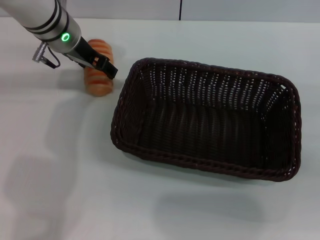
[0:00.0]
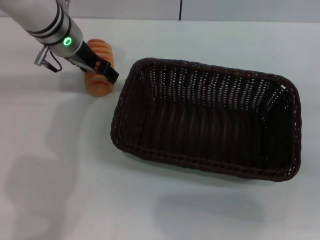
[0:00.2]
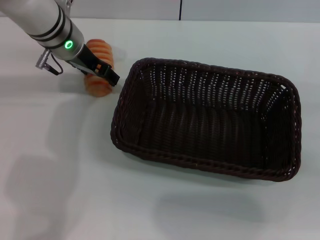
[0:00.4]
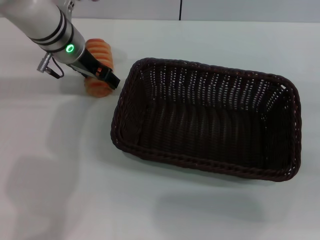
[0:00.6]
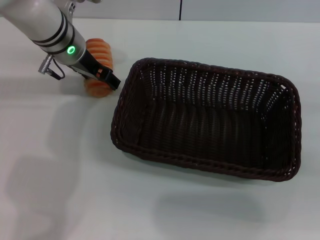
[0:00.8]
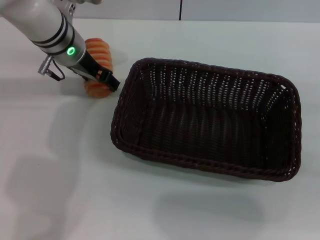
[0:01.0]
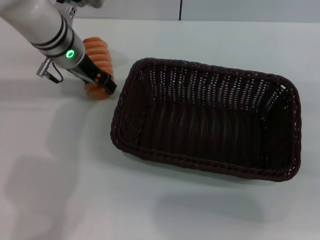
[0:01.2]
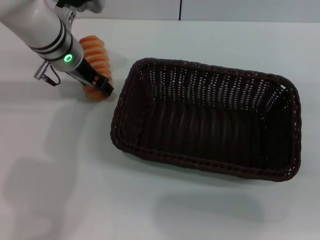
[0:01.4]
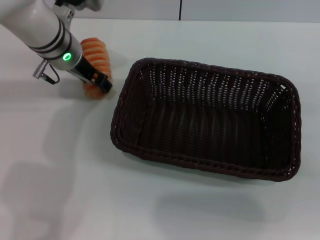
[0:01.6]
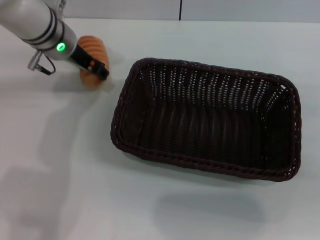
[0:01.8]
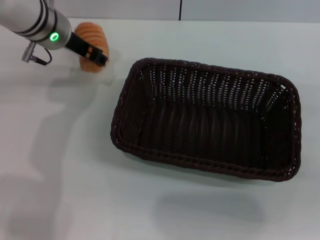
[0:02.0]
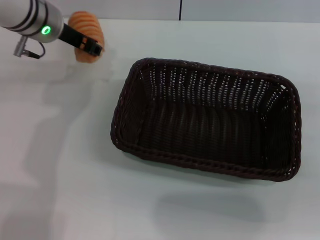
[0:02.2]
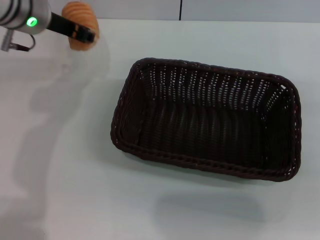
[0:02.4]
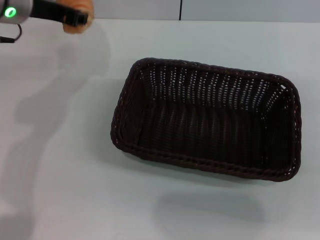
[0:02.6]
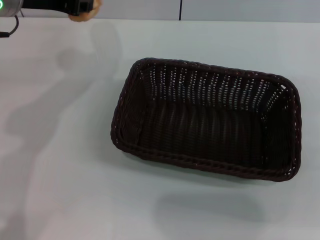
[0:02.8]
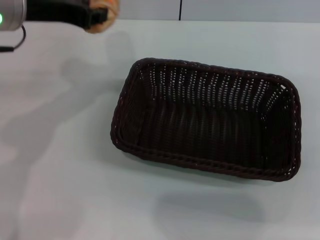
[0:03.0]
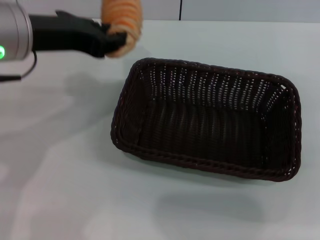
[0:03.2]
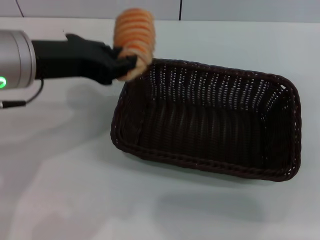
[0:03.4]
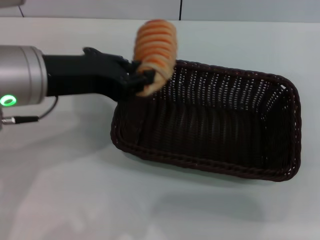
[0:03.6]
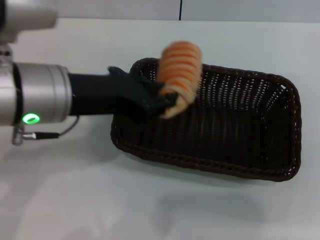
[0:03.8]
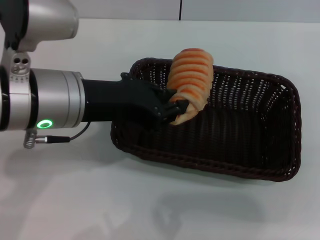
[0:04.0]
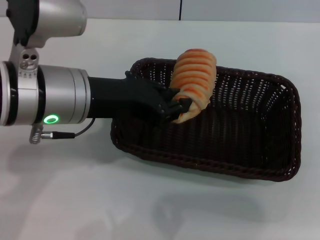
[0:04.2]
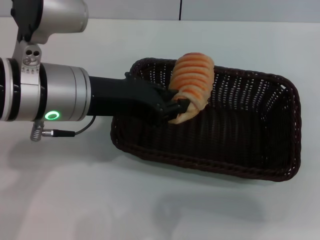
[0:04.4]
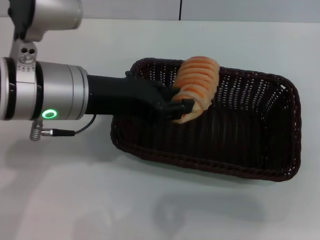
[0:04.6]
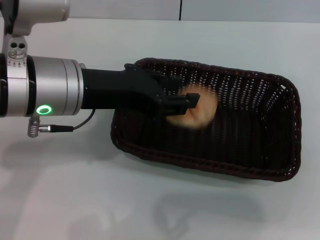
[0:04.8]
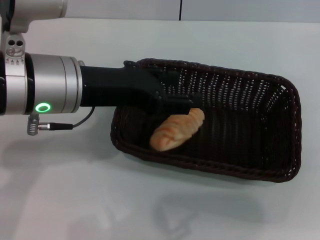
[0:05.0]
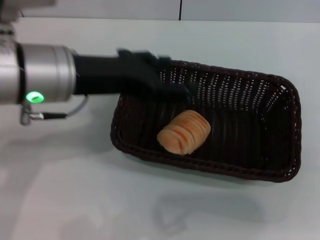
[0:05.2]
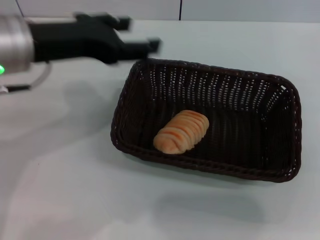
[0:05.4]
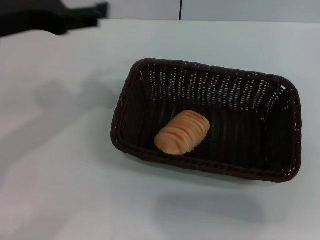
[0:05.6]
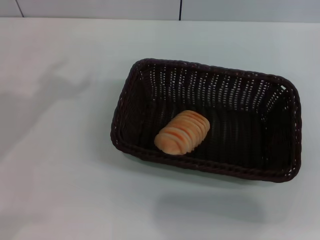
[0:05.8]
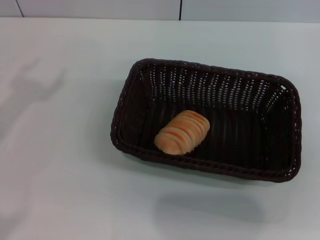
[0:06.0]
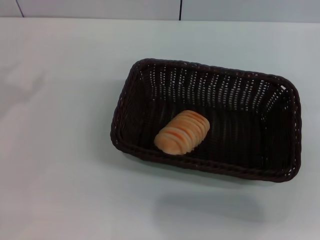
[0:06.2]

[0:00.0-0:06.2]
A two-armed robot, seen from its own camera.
Step, 0:00.0 to 0:02.2: Pick up the long bread with the left gripper.
Step, 0:02.6 to 0:05.2: Place the long bread into the dark basket with the left gripper.
0:00.0 to 0:01.6: The grippers make only small movements.
0:01.6 to 0:03.2: The left gripper travels backward and upward by about 15 cm, and closes.
0:03.2 to 0:04.6: The left gripper changes place by approximately 5 cm.
0:04.6 to 0:06.2: The left gripper moves to the left, approximately 20 cm, and opens up.
